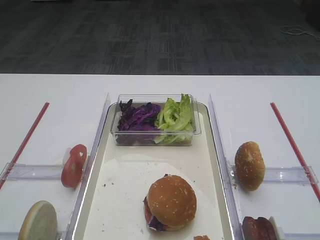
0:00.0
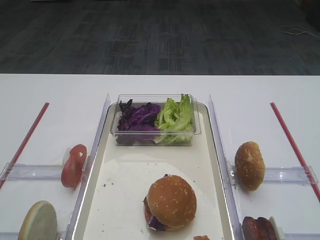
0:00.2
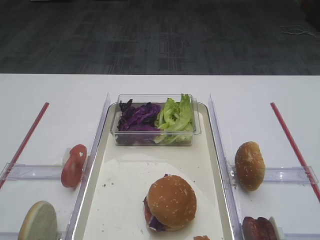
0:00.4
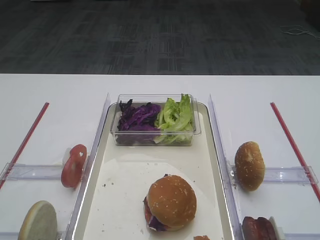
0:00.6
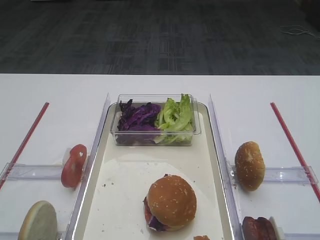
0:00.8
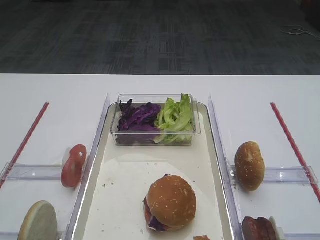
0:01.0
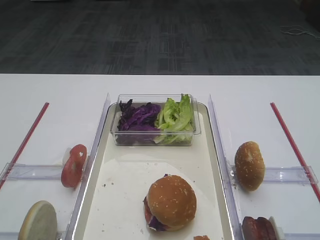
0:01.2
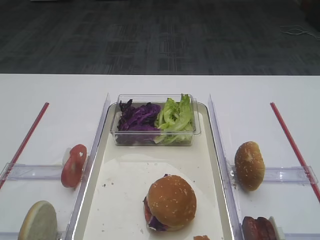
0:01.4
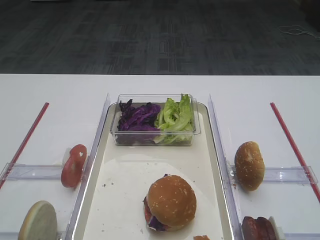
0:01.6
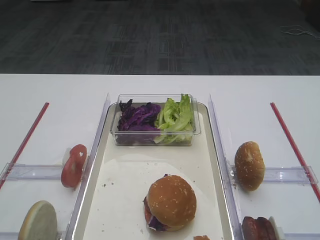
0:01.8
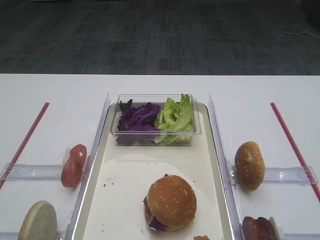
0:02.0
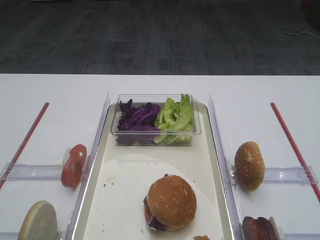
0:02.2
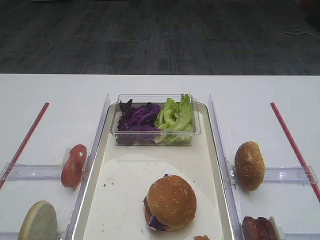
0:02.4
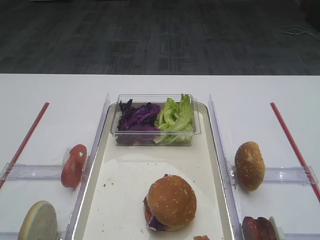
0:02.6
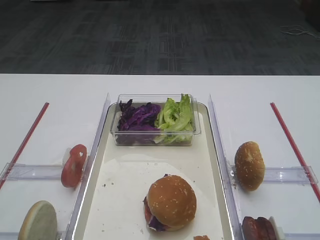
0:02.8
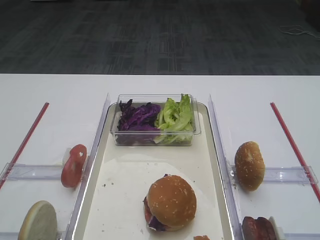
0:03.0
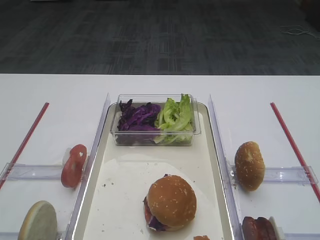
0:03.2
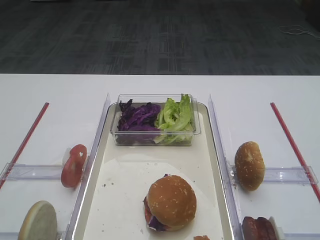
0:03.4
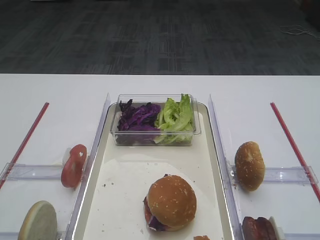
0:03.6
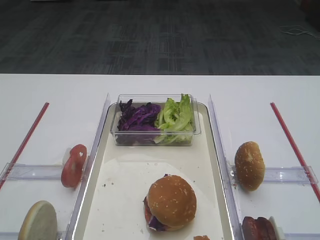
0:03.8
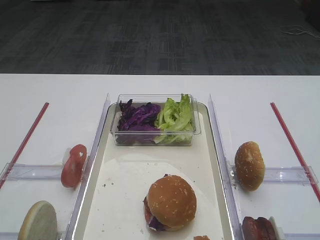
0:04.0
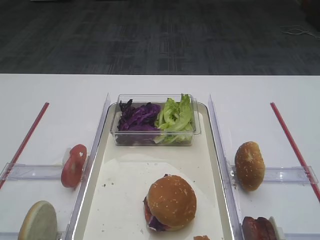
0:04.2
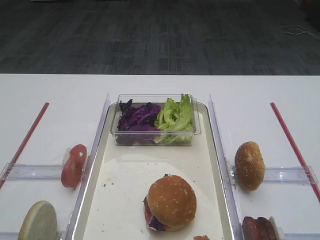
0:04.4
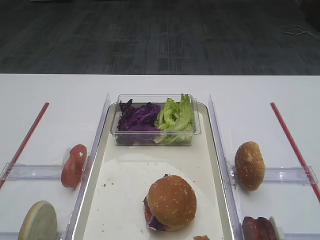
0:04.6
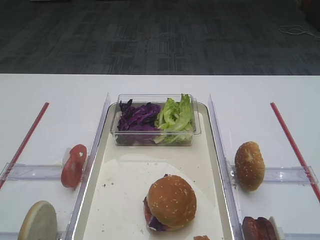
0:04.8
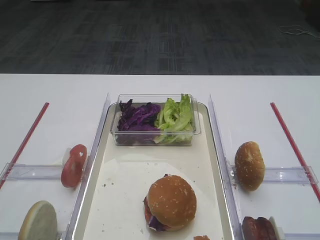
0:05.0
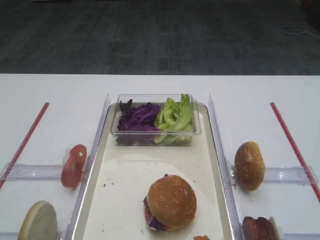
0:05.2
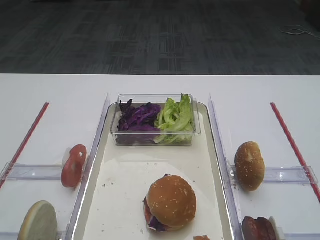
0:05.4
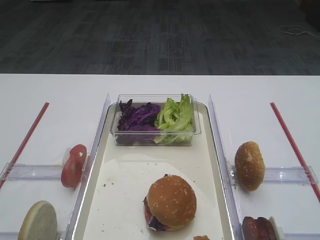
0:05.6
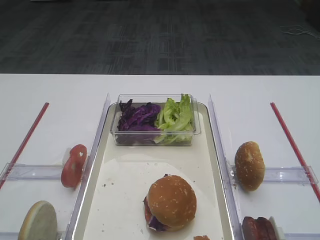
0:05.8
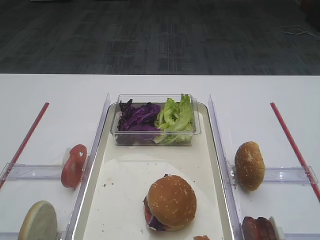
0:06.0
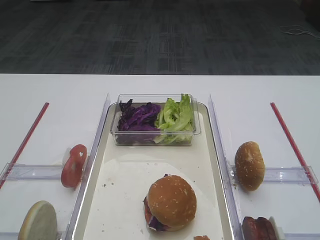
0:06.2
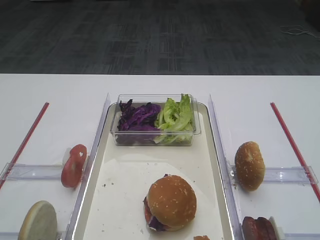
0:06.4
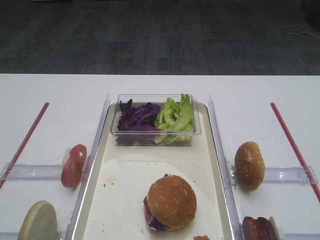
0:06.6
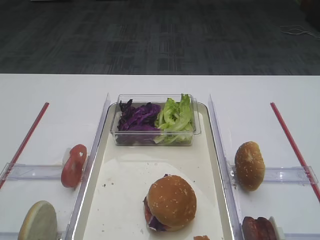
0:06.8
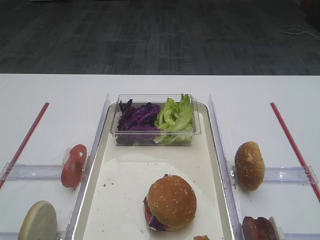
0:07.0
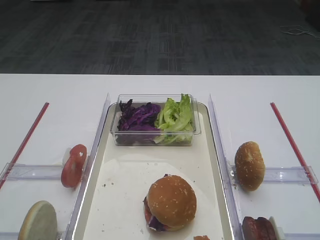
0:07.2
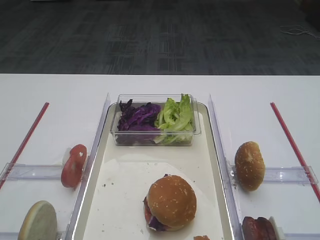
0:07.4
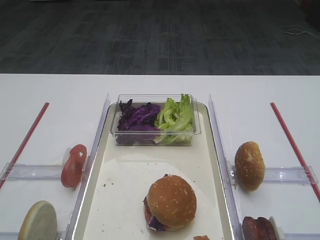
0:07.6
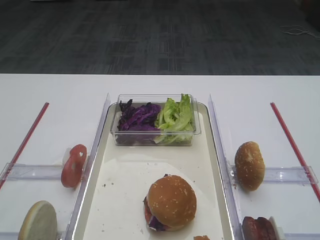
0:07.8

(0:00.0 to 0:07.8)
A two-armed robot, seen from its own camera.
0:01.6 - 0:03.2: Both grippers stay put.
0:03.2 - 0:07.8: The two grippers keep their place.

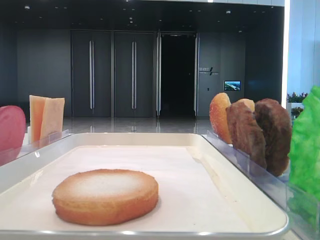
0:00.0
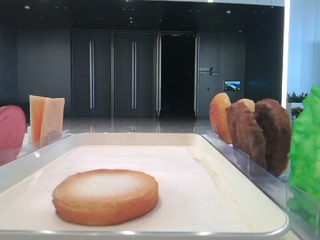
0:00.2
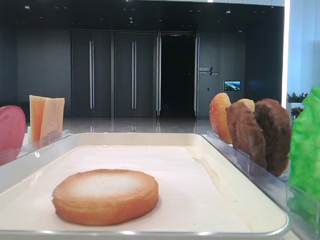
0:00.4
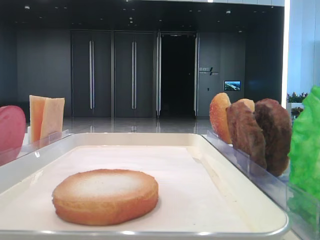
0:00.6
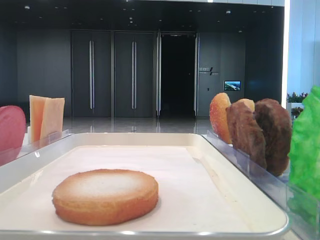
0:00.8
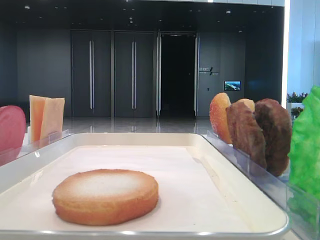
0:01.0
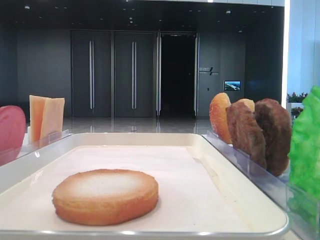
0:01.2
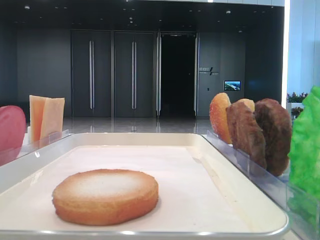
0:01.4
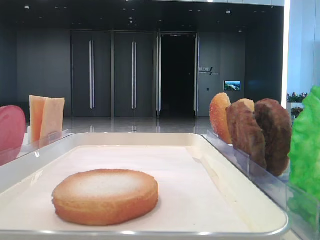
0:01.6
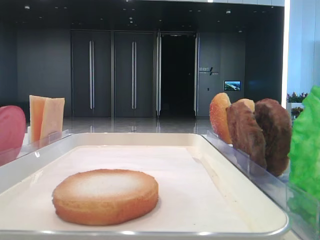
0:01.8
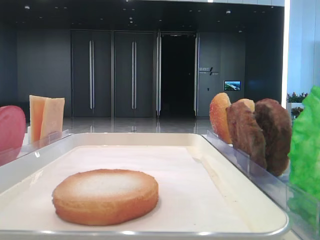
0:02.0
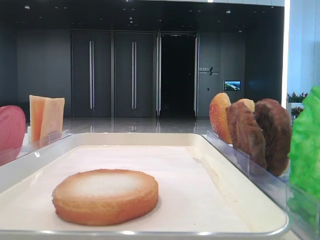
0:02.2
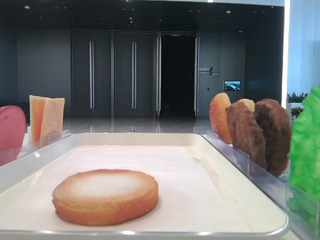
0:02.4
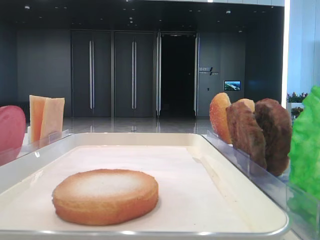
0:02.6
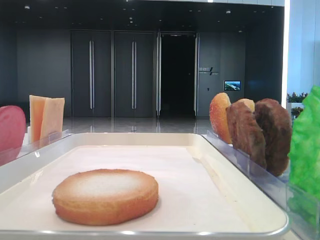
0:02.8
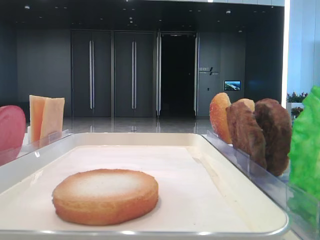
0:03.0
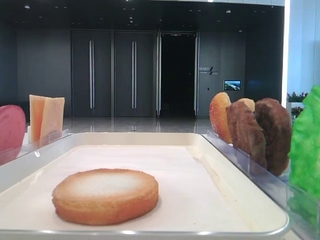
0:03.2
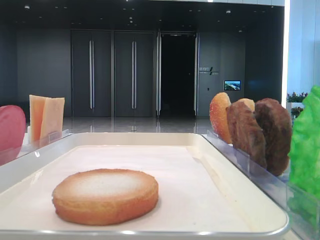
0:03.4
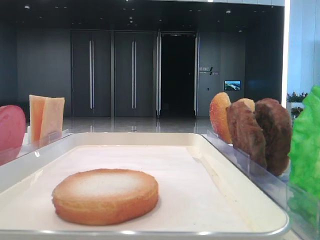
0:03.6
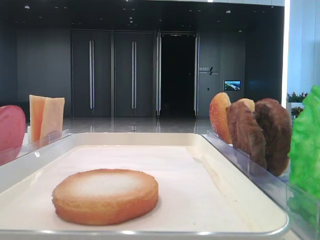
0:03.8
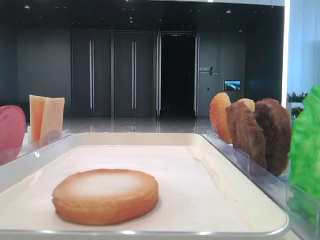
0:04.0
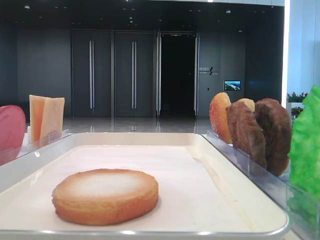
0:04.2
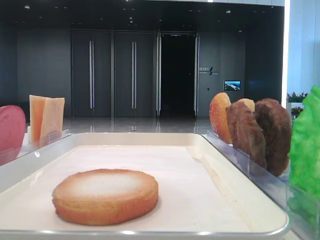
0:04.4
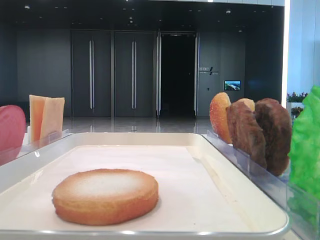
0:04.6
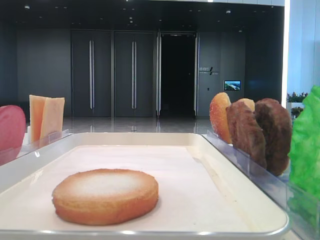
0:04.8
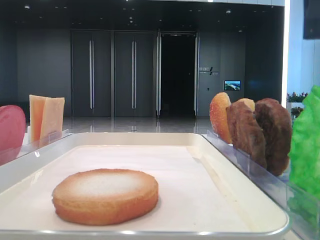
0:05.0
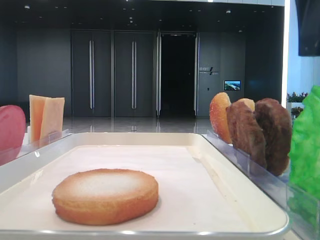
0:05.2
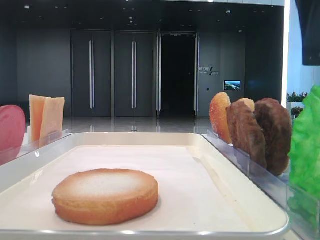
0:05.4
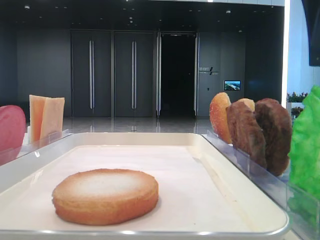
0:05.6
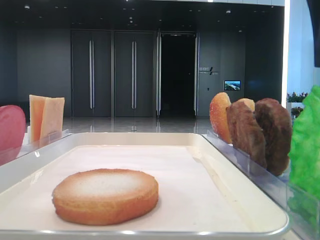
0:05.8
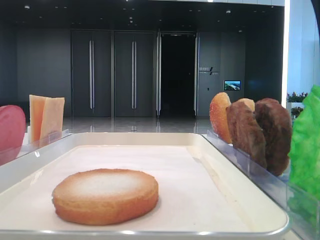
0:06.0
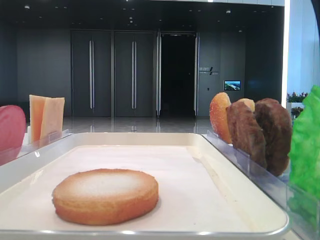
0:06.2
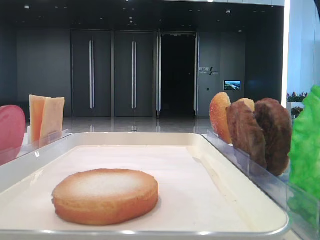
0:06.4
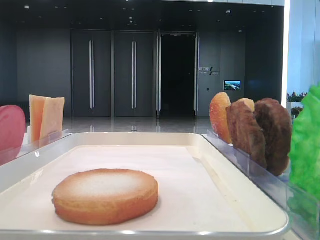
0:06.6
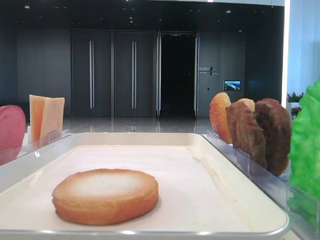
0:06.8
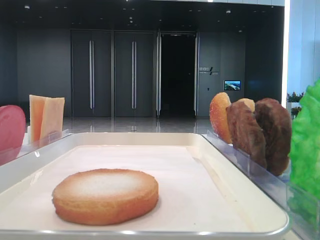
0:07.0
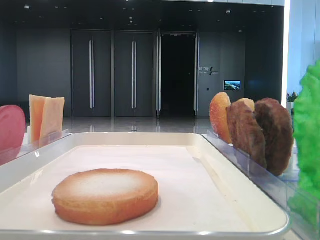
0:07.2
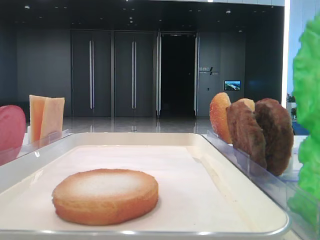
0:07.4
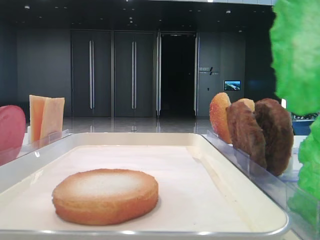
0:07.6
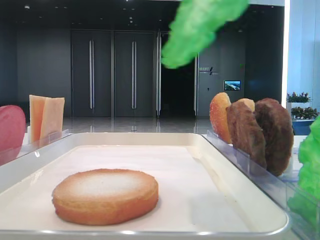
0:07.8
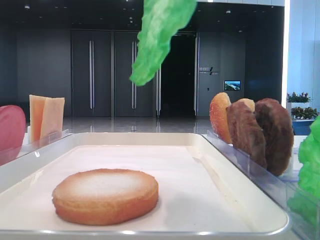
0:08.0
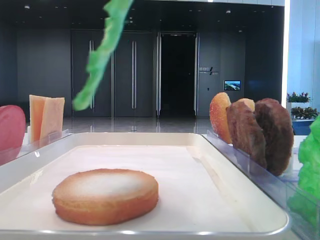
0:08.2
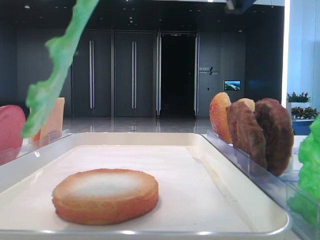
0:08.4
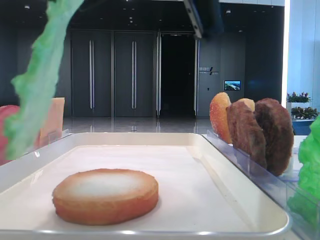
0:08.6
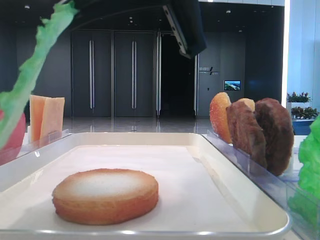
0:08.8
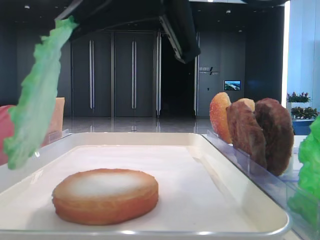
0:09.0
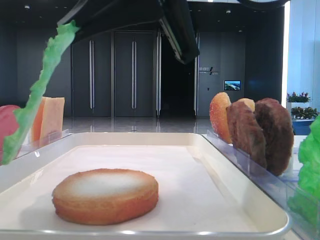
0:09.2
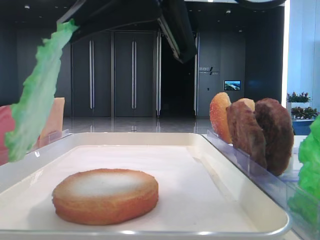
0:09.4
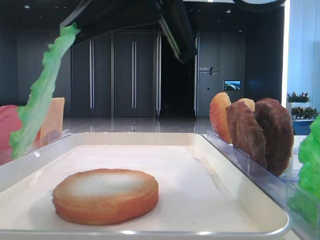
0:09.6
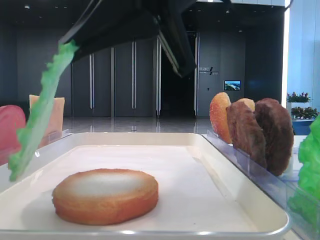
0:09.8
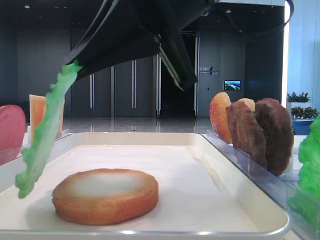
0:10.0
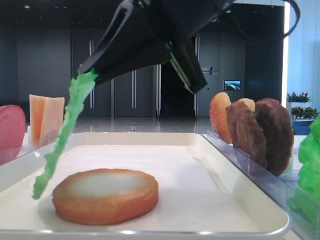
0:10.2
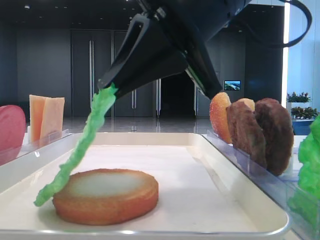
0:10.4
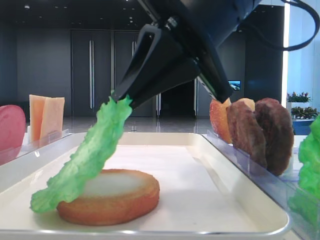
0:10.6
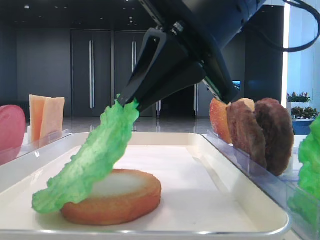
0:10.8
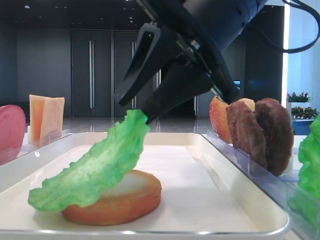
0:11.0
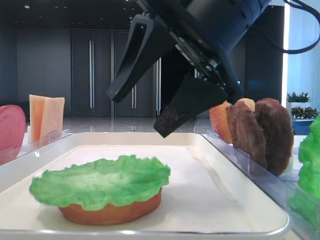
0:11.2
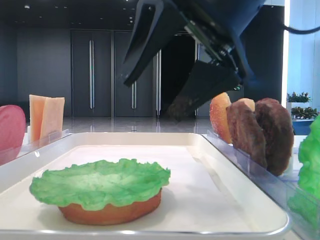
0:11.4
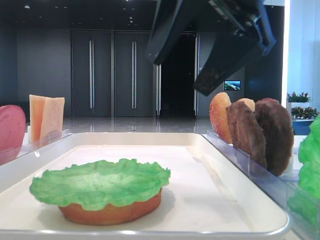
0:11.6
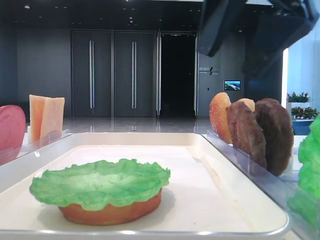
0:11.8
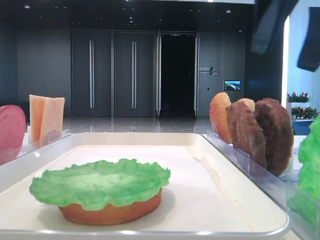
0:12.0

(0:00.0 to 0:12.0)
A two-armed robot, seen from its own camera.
Step, 0:06.8 - 0:11.0: Place the lettuce leaf on the bottom bread with the right hand.
0:06.0 - 0:07.6: The right gripper goes approximately 5 cm upward, and closes.
0:07.6 - 0:09.0: The right gripper goes about 15 cm to the left, downward and forward.
0:09.0 - 0:10.4: There are only small adjustments of the grippers.
0:10.4 - 0:12.0: The right gripper shifts some 15 cm to the right and upward, and opens up.

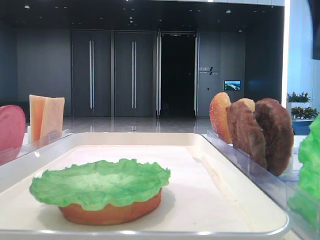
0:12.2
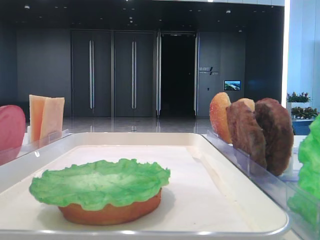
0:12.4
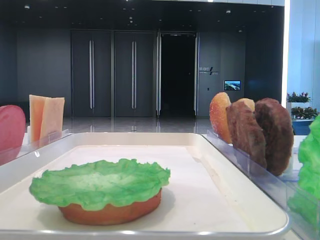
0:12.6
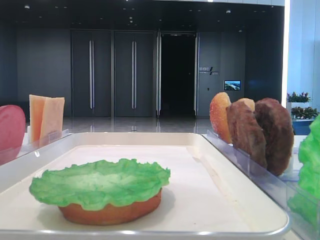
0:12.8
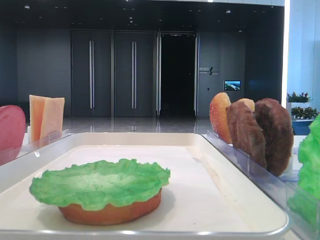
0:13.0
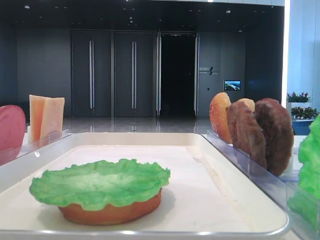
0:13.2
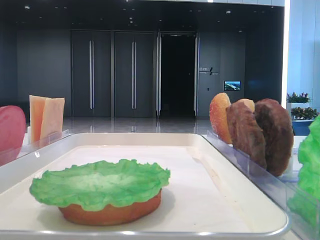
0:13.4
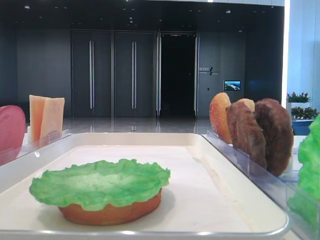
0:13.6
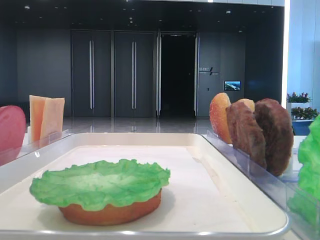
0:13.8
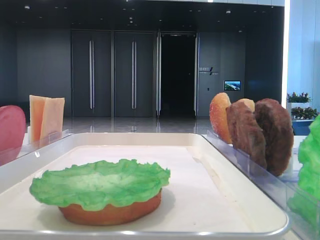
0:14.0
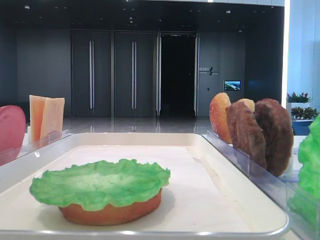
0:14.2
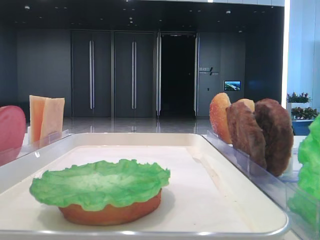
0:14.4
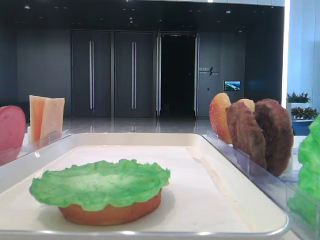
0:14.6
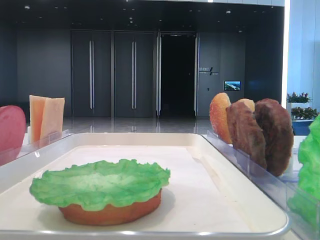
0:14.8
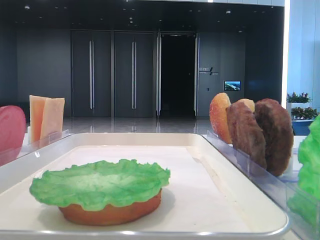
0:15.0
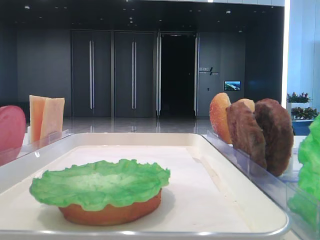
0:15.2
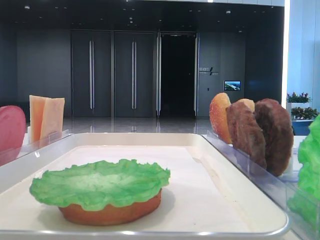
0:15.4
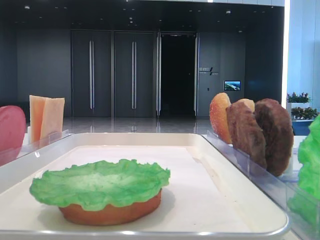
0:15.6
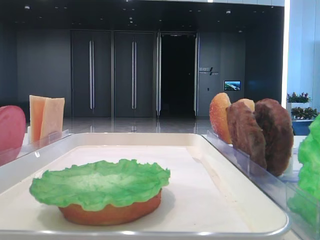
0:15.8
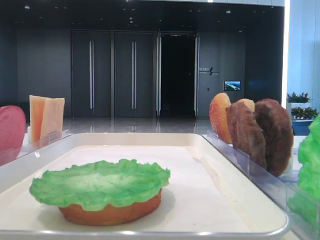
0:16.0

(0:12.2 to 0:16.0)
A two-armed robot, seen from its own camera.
0:12.2 - 0:13.4: The right gripper heads backward and to the right, covering approximately 15 cm.
0:14.8 - 0:16.0: Both grippers stay put.
